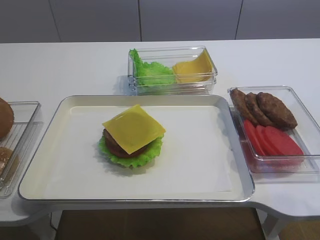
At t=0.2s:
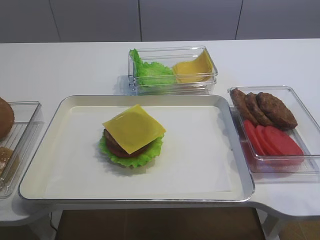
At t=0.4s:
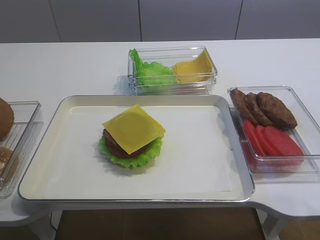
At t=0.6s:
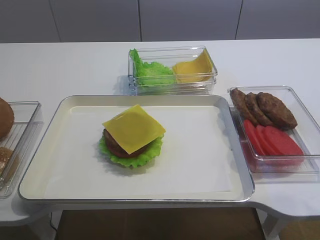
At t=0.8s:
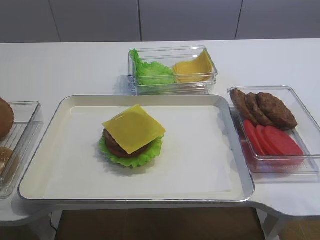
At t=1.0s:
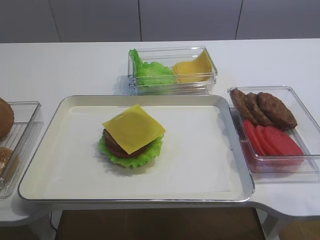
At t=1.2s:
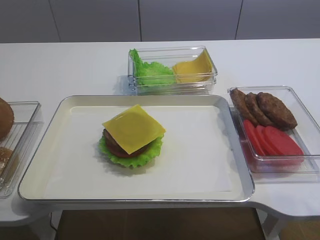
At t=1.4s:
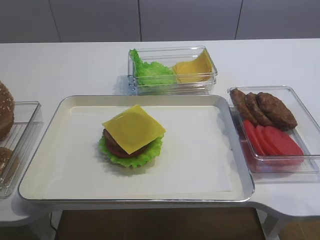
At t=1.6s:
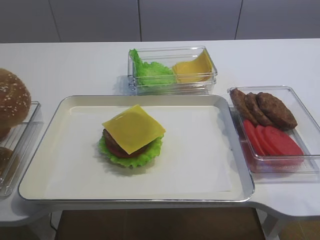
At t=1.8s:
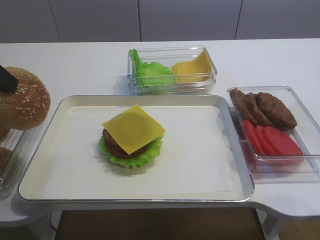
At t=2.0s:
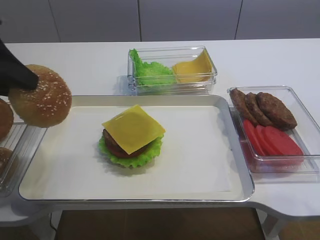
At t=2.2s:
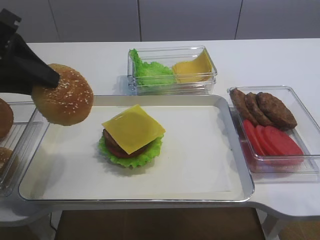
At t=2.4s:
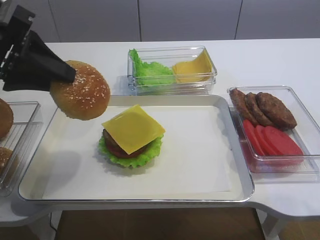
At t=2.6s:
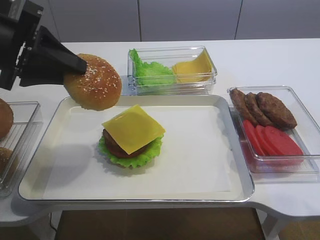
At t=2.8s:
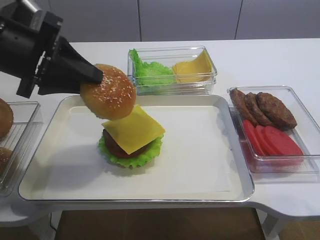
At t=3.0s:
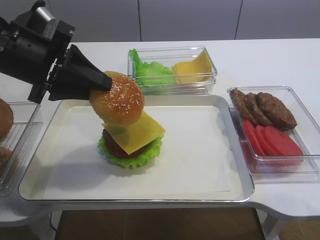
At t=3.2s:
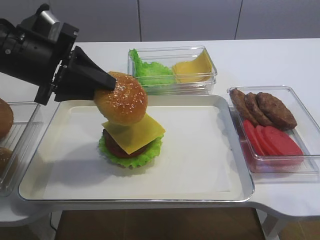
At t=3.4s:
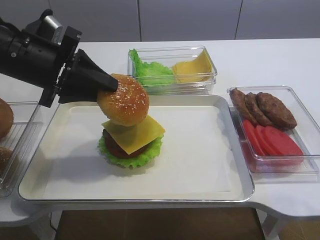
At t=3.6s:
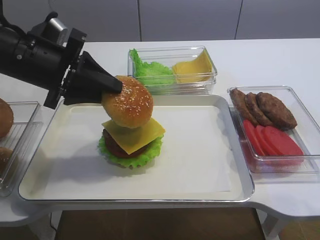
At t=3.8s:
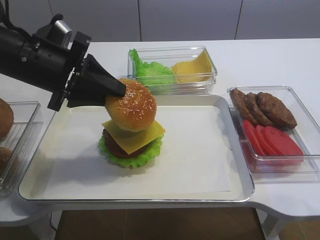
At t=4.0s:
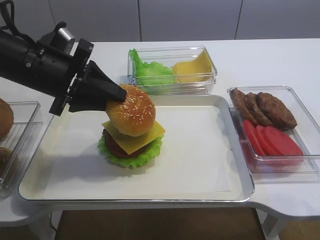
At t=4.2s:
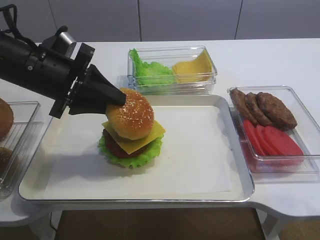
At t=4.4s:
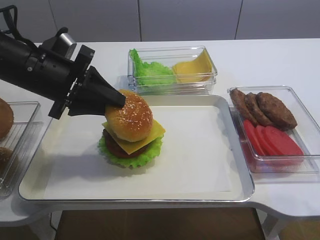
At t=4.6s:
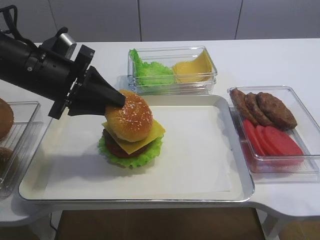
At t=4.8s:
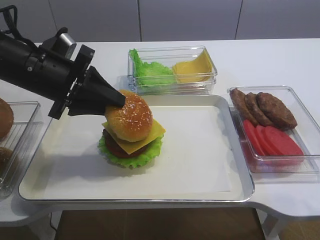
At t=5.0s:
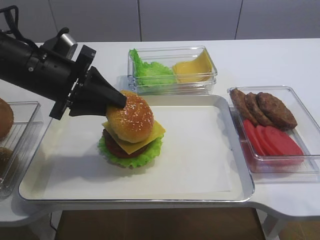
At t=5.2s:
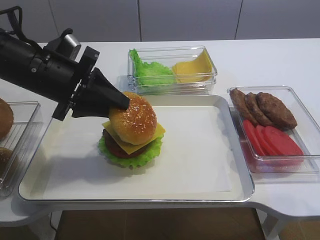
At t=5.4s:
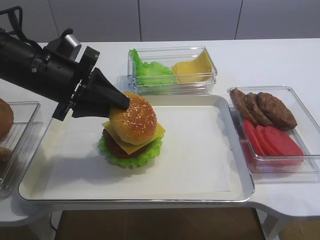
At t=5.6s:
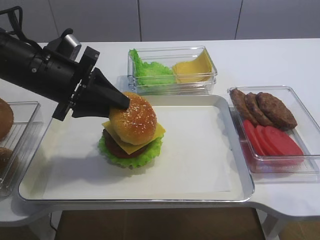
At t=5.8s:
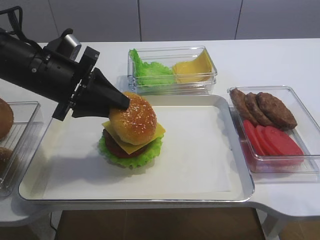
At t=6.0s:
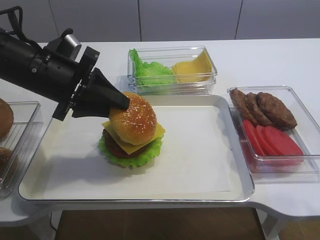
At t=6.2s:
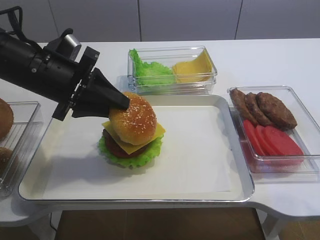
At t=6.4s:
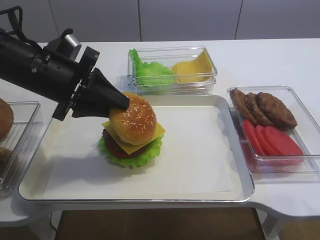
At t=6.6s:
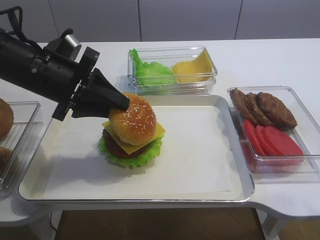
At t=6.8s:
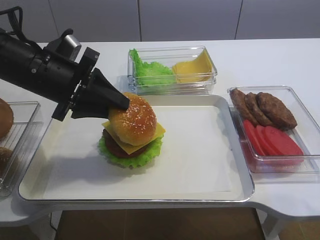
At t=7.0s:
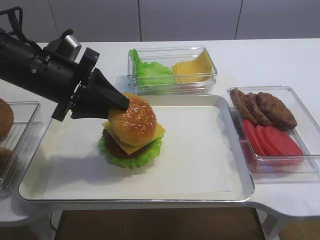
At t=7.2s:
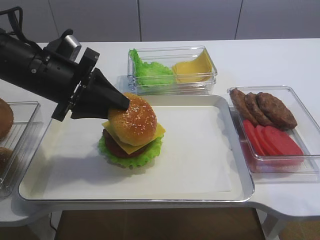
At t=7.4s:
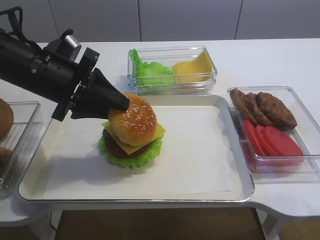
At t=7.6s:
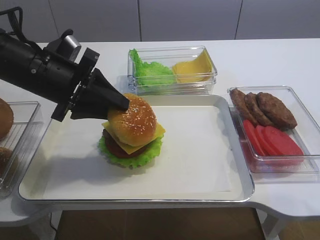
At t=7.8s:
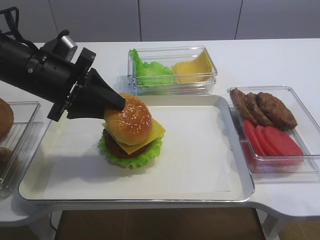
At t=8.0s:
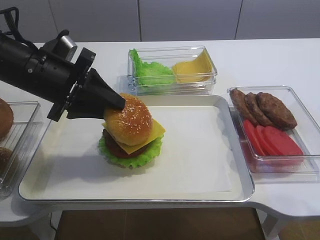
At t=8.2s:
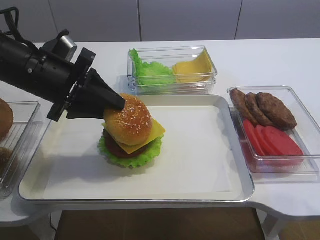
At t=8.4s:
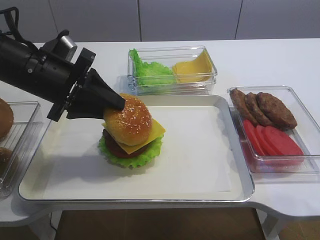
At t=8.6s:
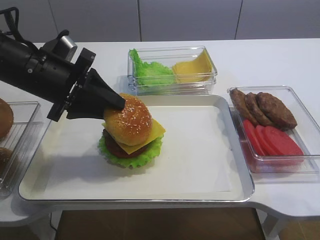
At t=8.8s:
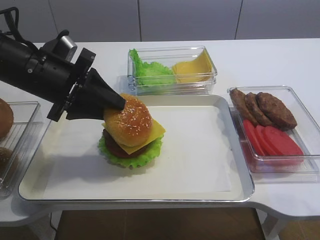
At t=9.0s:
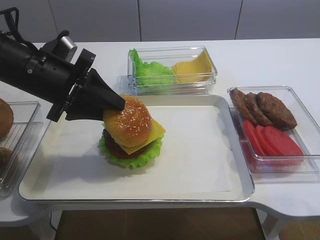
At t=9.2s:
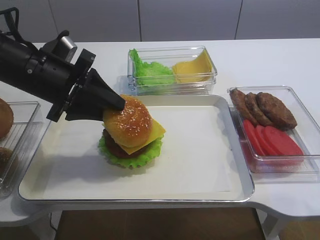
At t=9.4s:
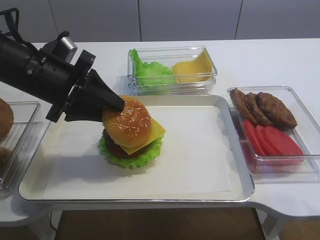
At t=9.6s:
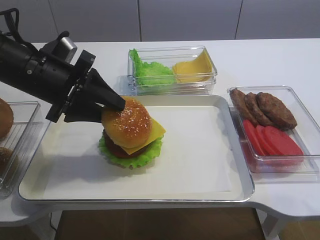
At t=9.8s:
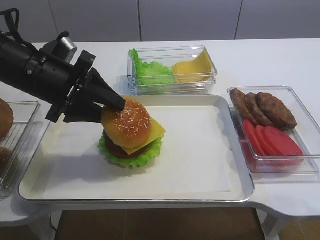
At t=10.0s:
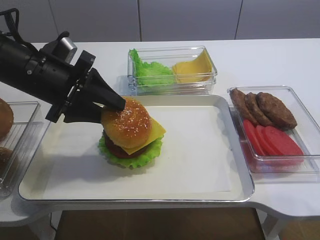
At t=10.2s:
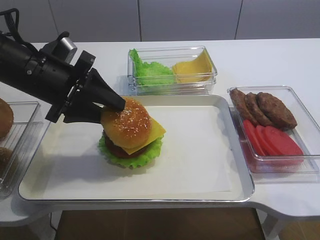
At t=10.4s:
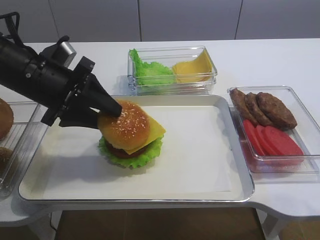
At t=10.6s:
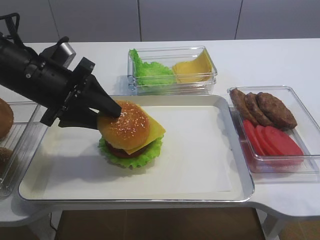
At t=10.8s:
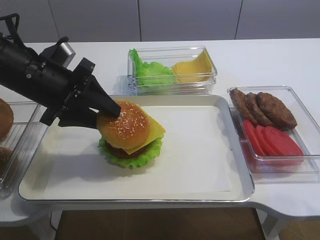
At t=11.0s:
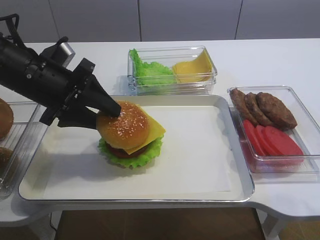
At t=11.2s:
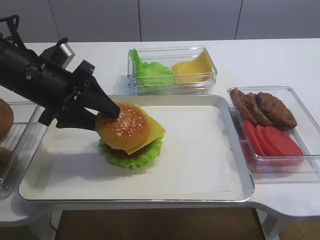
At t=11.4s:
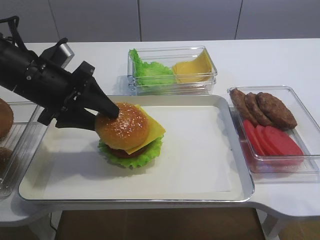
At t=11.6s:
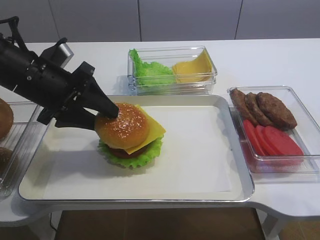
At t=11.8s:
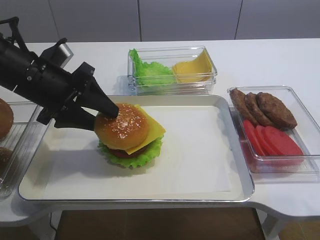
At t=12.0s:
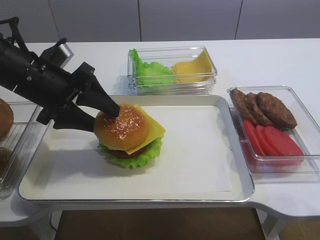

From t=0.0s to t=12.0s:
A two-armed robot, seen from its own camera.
From t=0.0s to t=1.6s: The left gripper shifts roughly 5 cm to the right.
From t=1.6s to t=3.0s: The left gripper shifts approximately 10 cm to the right and forward.
From t=3.0s to t=4.4s: The grippers stay close to where they were, moving slightly.
From t=4.4s to t=9.0s: Both grippers stay about where they are.
From t=9.0s to t=10.4s: Both grippers stay put.
From t=10.4s to t=12.0s: The grippers stay close to where they were, moving slightly.

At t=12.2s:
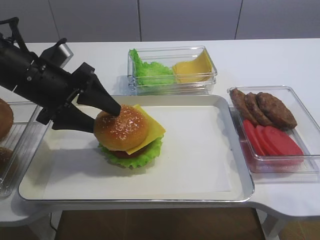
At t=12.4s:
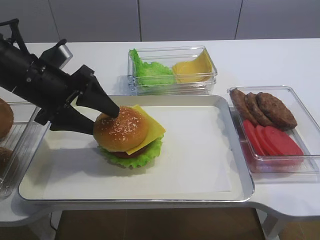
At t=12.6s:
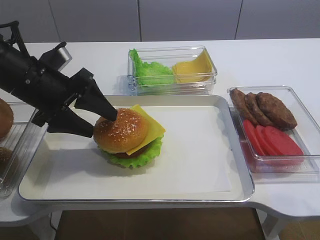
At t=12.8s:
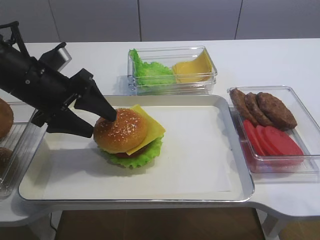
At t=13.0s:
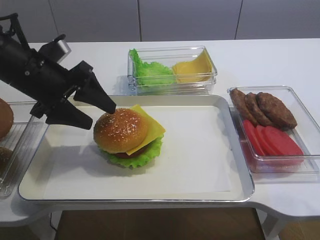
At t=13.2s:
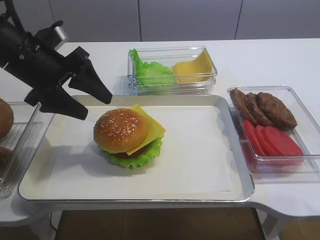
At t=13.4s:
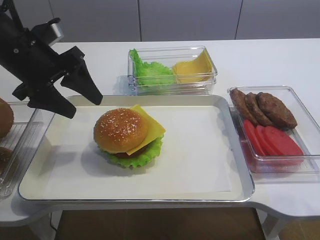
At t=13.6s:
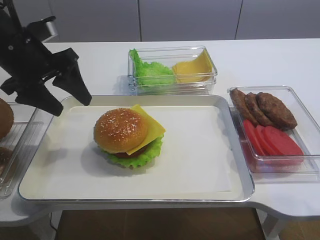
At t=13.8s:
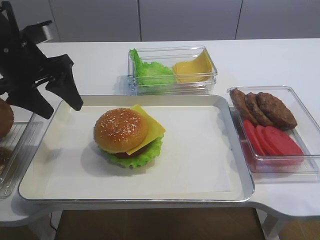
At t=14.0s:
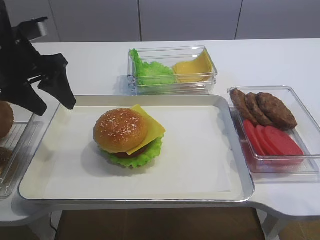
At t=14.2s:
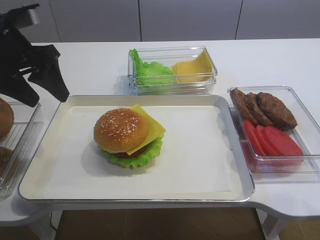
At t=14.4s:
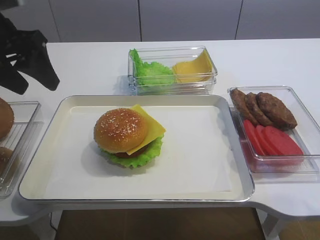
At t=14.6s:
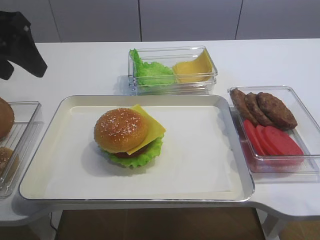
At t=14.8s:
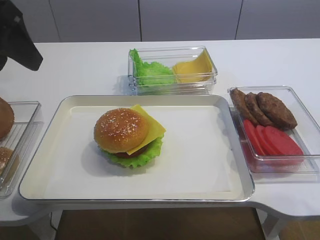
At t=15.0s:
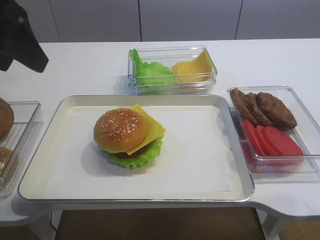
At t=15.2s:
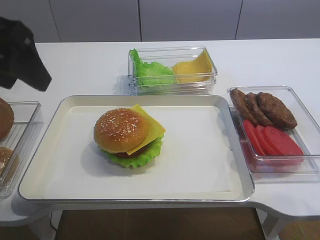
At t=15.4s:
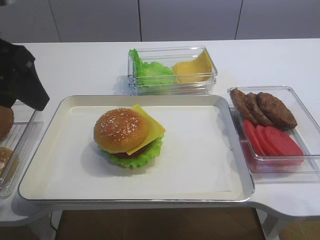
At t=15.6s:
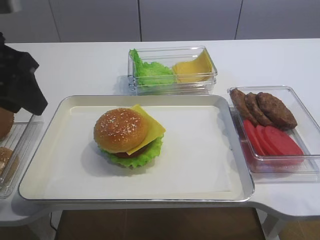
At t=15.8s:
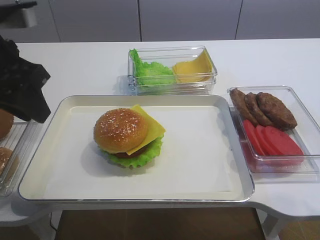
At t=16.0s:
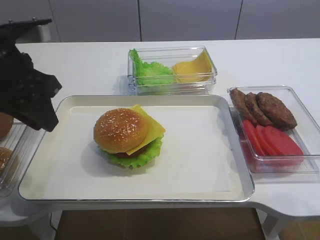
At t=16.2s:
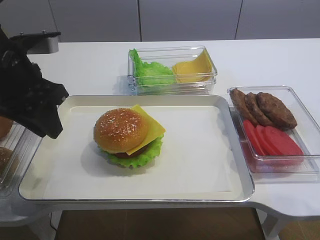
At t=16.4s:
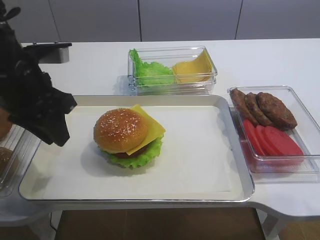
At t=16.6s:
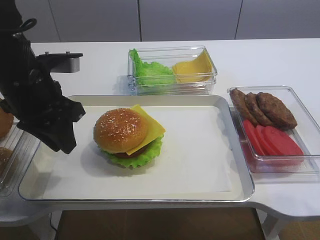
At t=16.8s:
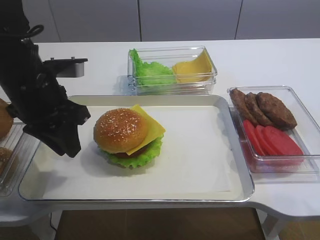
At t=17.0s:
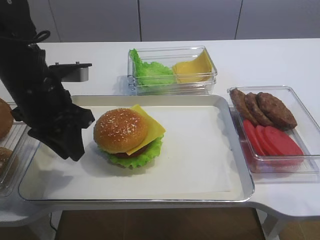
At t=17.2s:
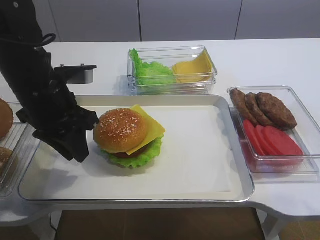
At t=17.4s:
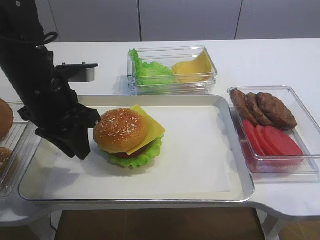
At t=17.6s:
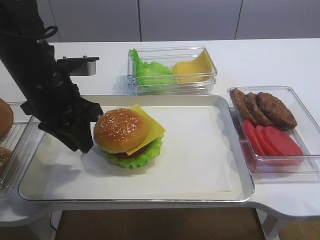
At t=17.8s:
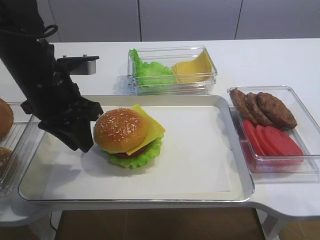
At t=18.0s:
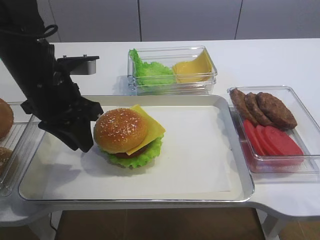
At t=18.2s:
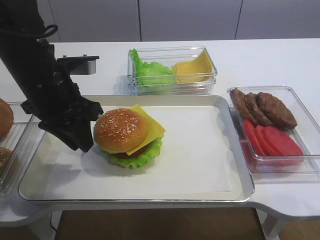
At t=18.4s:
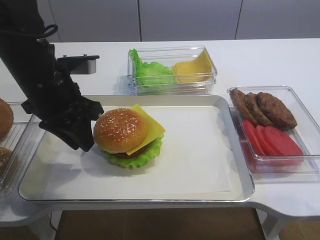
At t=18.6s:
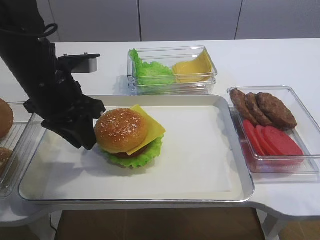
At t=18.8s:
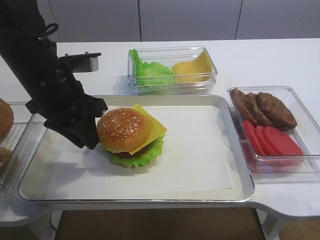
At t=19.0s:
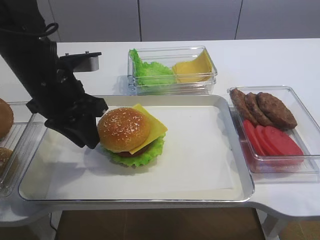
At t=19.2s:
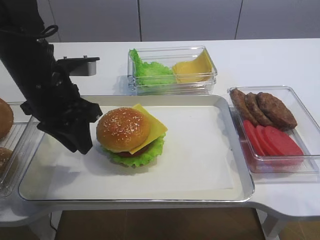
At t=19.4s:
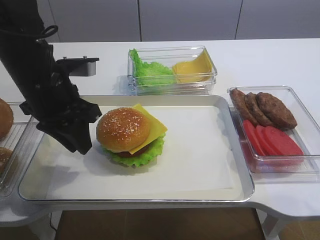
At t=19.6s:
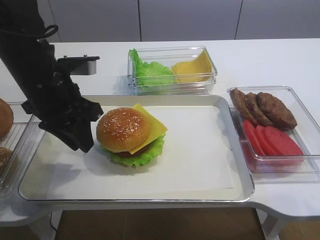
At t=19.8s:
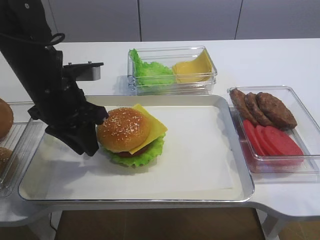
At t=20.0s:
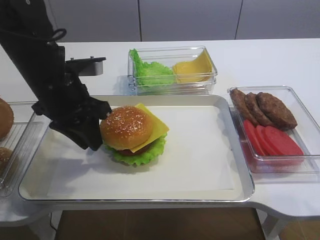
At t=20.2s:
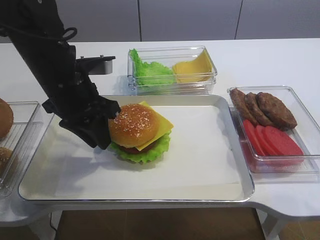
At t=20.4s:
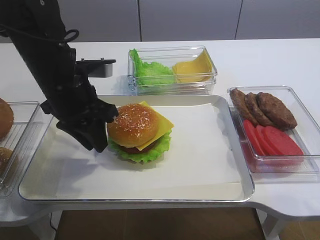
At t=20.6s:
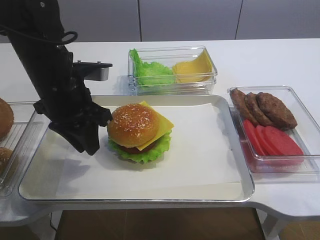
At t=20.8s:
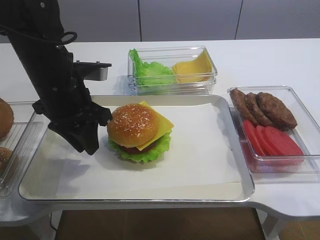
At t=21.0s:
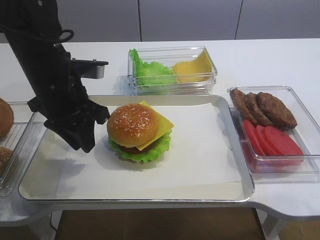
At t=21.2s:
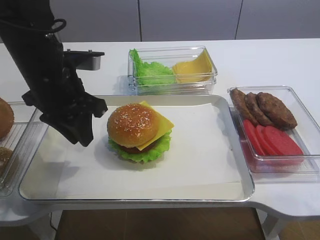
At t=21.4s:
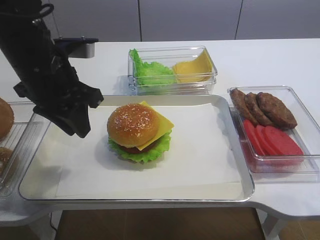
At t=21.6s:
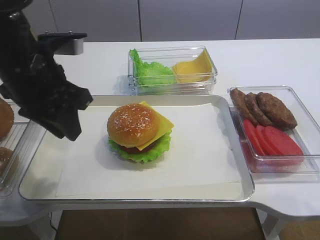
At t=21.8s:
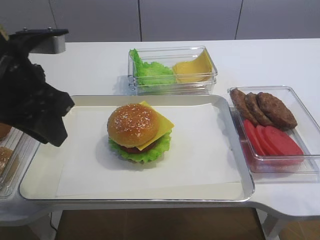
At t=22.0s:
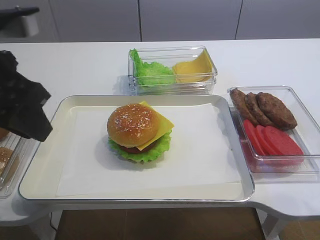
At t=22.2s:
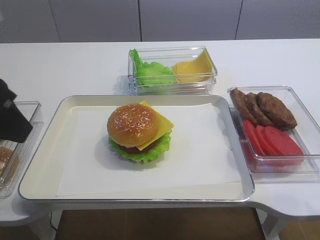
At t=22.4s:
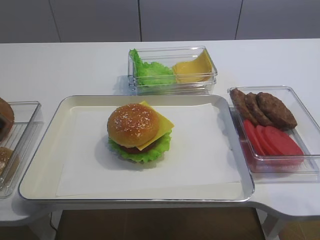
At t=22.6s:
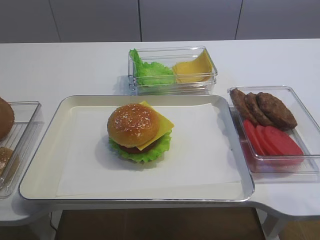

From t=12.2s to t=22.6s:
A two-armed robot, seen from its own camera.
From t=12.2s to t=13.6s: The left gripper changes place by some 5 cm.
From t=13.6s to t=15.2s: The left gripper is displaced upward and backward by roughly 15 cm.
From t=15.2s to t=16.6s: The left gripper travels downward by roughly 10 cm, and closes its fingers.
From t=16.6s to t=18.2s: The grippers move only a little.
From t=18.2s to t=19.6s: Both grippers stay about where they are.
From t=19.6s to t=21.2s: There are only small adjustments of the grippers.
From t=21.2s to t=22.6s: The left gripper moves backward, upward and to the left, some 25 cm.
